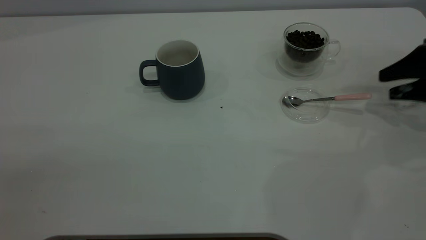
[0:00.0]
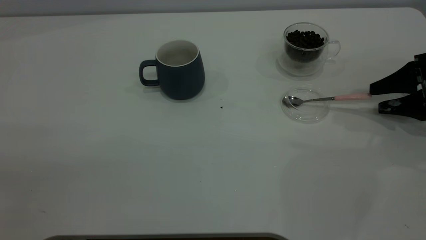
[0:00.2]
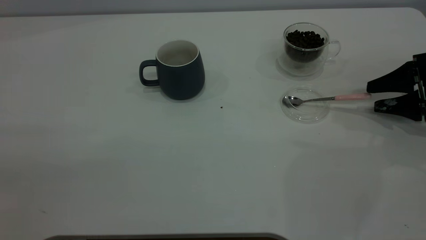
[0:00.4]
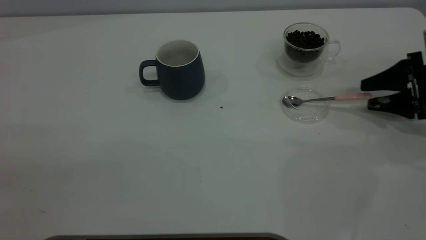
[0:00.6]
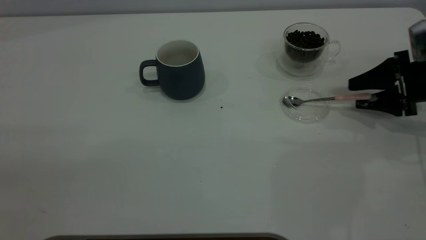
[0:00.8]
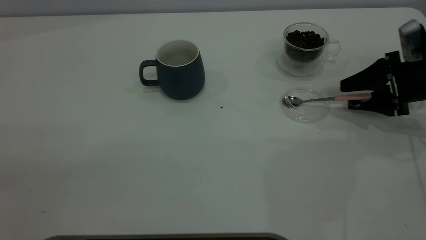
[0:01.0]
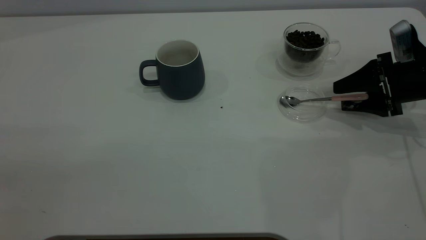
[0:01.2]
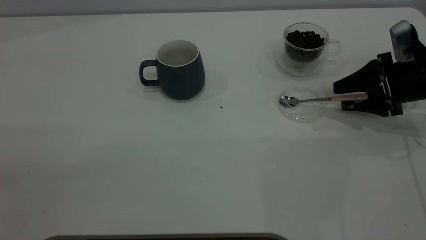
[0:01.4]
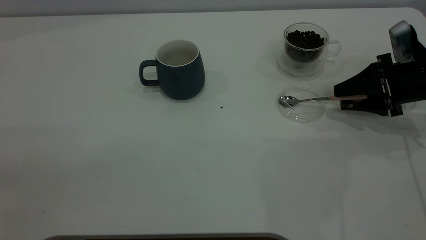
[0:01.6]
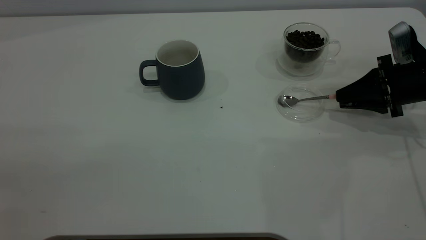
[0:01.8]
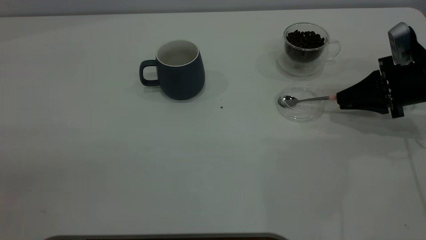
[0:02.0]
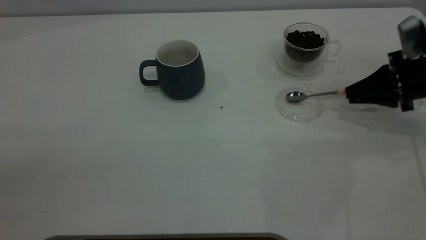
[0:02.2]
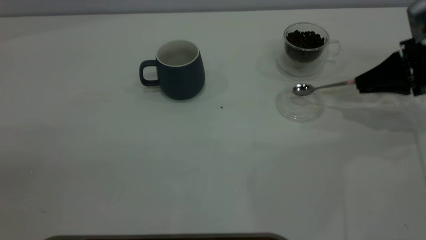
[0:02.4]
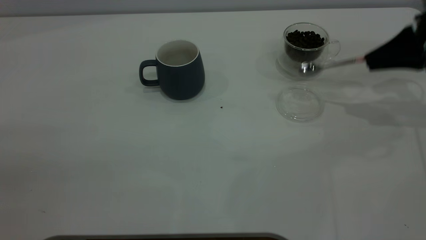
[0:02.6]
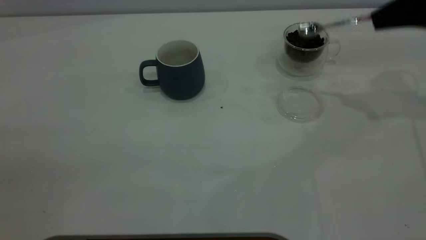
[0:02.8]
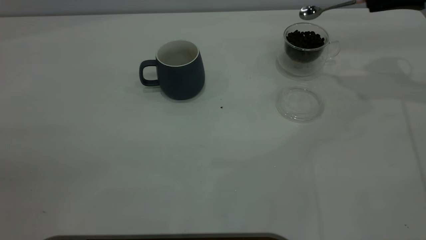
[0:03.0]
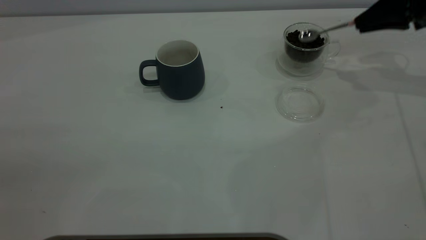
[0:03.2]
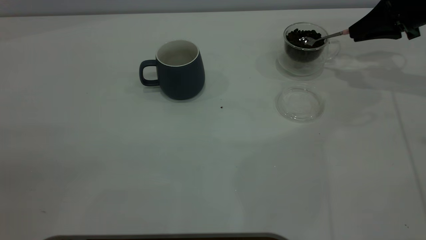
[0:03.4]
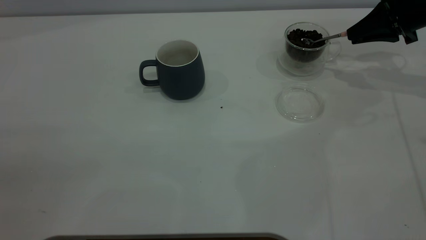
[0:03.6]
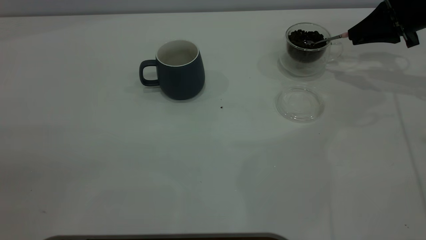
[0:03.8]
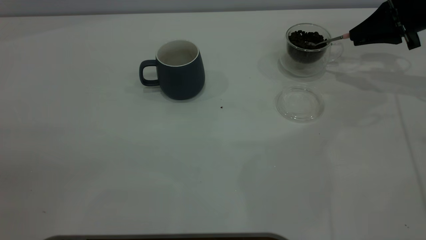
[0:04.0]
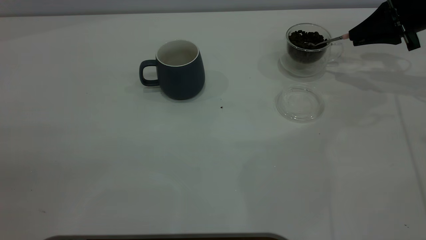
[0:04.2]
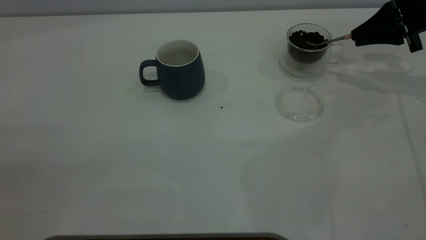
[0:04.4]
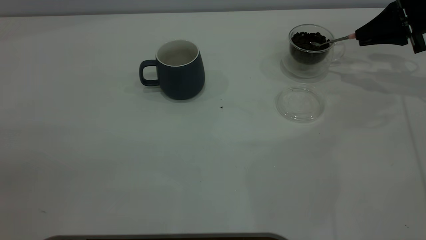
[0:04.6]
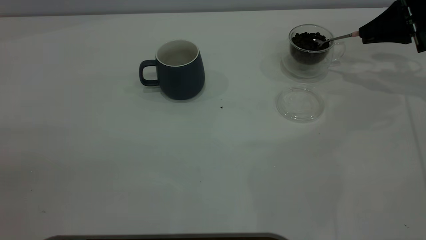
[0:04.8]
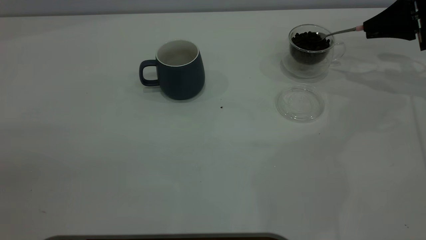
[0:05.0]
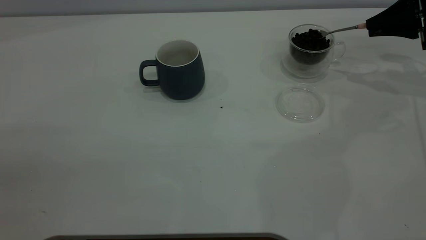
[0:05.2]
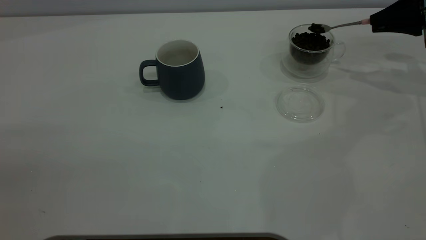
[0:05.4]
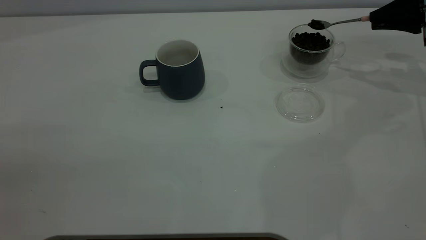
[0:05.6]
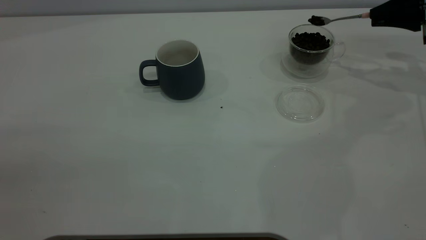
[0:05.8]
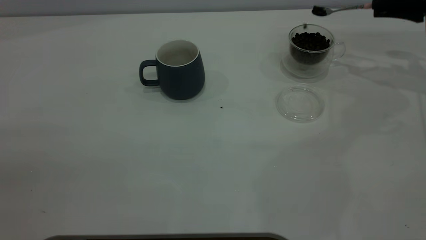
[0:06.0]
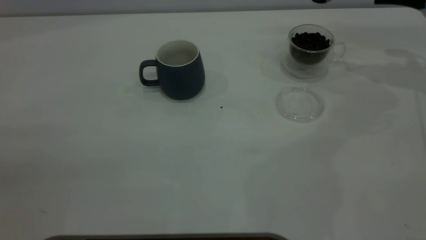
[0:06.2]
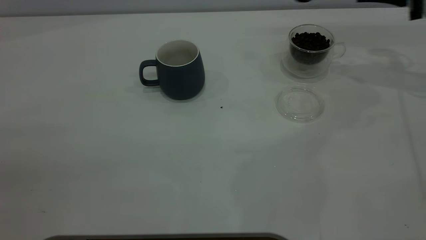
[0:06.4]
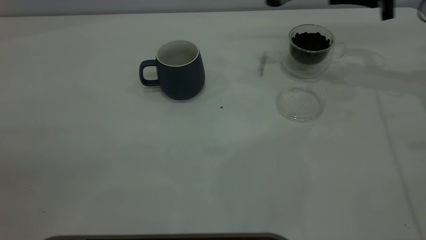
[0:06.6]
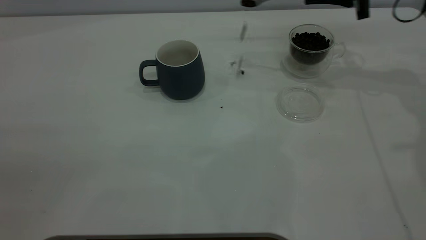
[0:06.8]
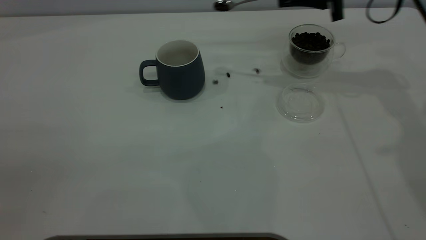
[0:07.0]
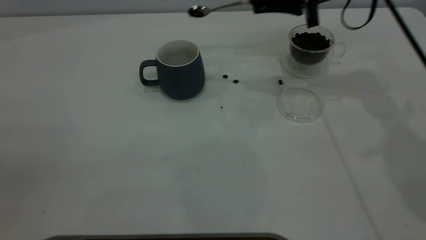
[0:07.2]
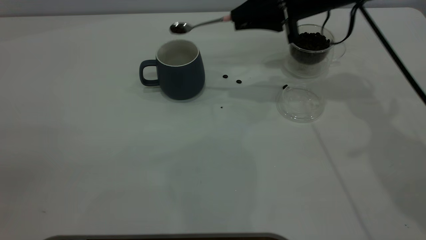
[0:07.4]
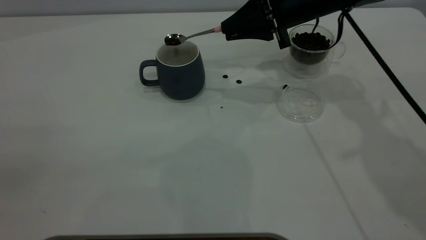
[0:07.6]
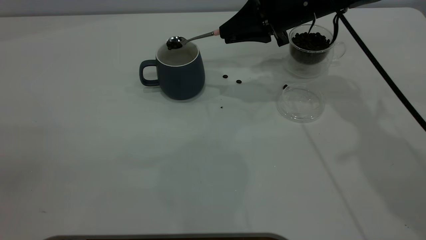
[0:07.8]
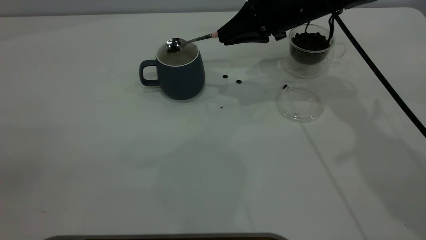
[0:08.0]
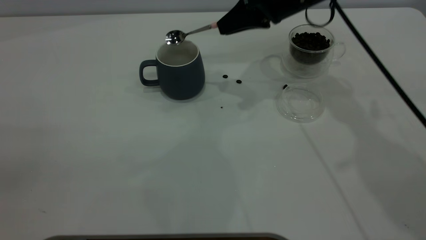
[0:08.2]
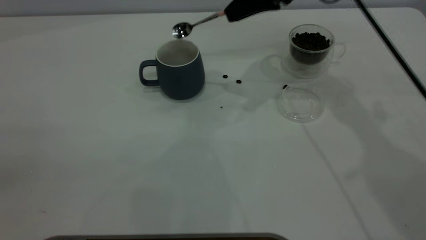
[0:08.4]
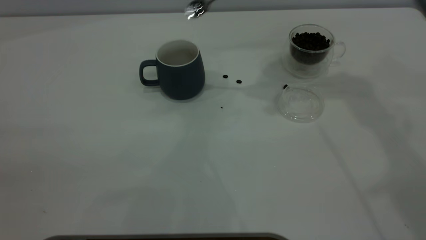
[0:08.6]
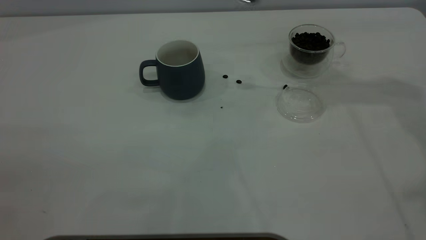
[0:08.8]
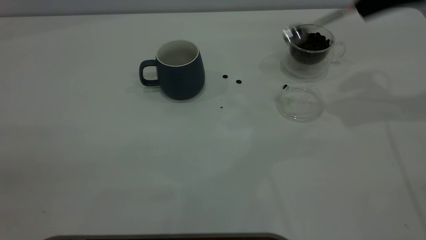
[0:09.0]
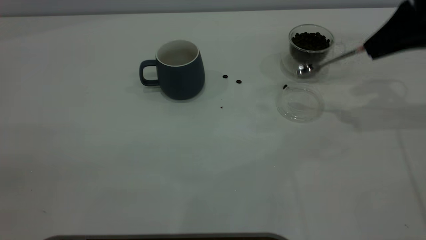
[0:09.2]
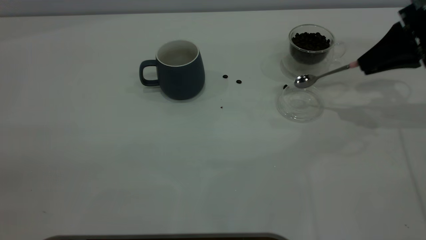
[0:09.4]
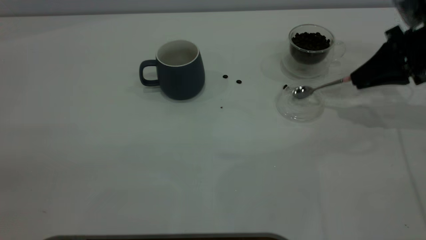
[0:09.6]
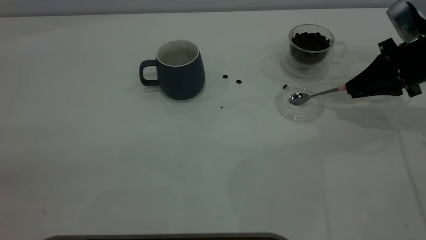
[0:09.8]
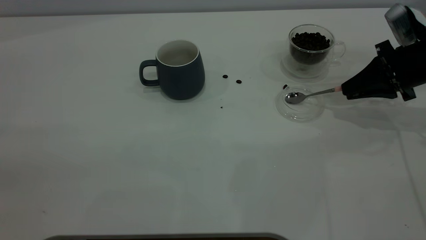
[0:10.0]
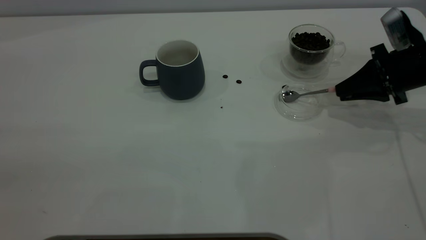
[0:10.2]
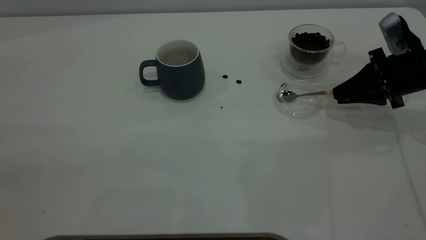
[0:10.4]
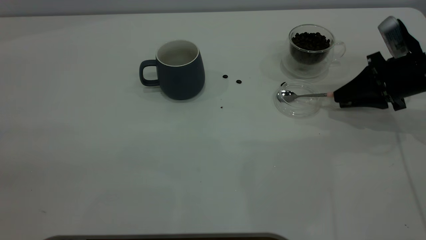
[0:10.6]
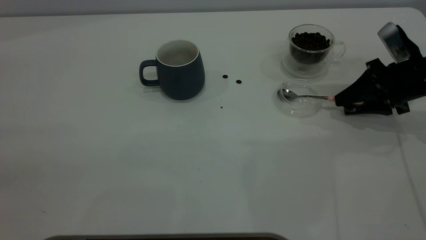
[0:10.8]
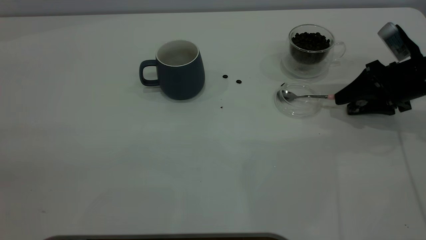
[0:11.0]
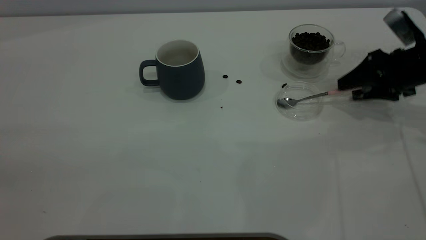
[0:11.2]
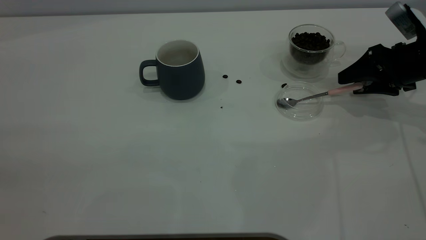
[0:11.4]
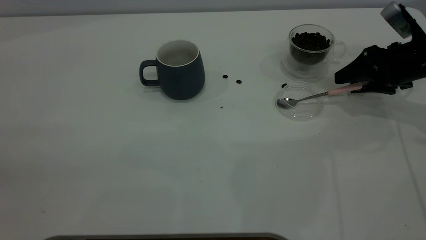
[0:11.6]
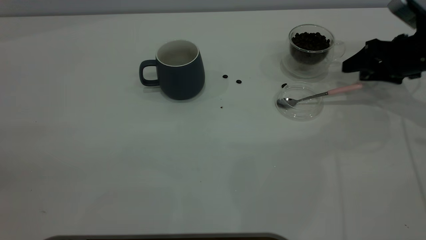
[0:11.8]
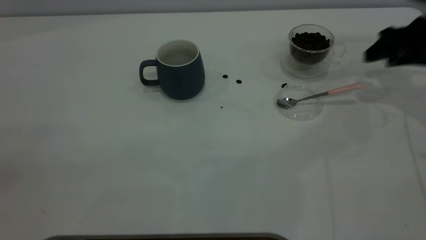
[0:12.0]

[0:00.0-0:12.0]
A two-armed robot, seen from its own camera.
Task of the whole recording: the left gripper place the grey cup in the center of the table, the right gripper take the pink spoon from the cup lid and scoop out the coffee beans from the coffee cup and put them into the grey cup, the right gripper put the spoon back into the cup lid.
Step, 0:00.0 to 0:02.4: Pick up the spoon.
Step, 0:02.6 to 0:08.2: Scoop a spoonful of beans into the cup.
Step, 0:08.4 to 0:11.8: Place the spoon back in its original place.
0:00.0 to 0:01.6: The right gripper travels to the left by roughly 5 cm, and closes its fingers.
0:01.6 to 0:03.0: The right gripper travels upward and forward by about 15 cm, and closes up.
0:03.0 to 0:04.4: The right gripper heads downward, covering about 5 cm.
0:04.4 to 0:06.0: The grippers stay close to where they were, moving slightly.
0:06.0 to 0:07.6: The right gripper travels to the left by about 25 cm.
0:07.6 to 0:09.0: The right gripper is displaced to the right and upward by some 20 cm.
0:09.0 to 0:10.4: The right gripper moves downward, approximately 15 cm.
0:10.4 to 0:12.0: The right gripper shifts approximately 5 cm upward, and opens its fingers.

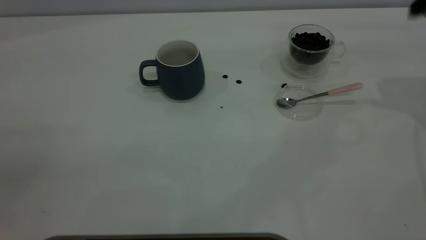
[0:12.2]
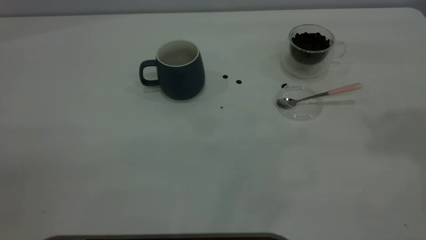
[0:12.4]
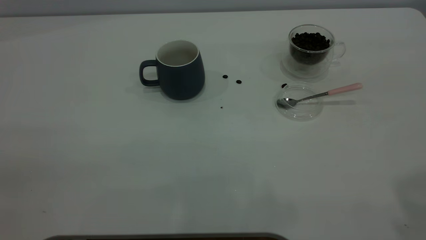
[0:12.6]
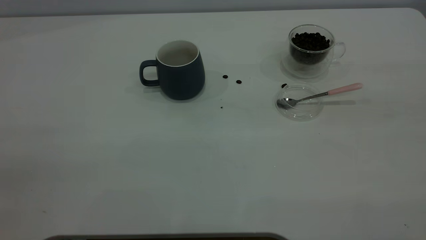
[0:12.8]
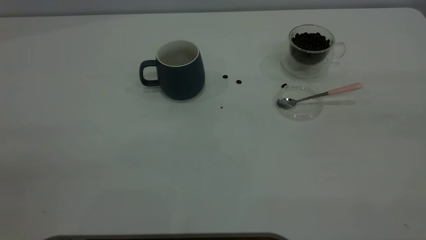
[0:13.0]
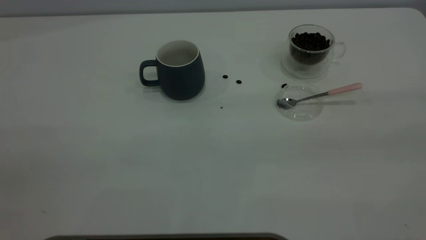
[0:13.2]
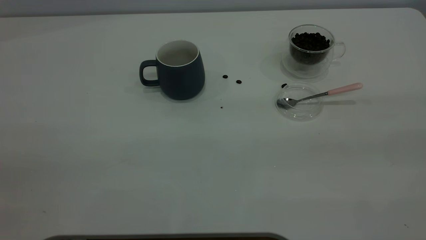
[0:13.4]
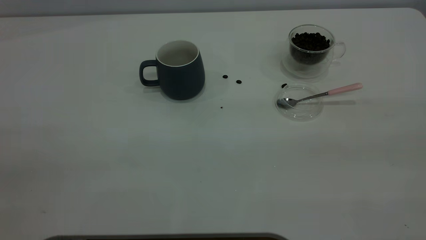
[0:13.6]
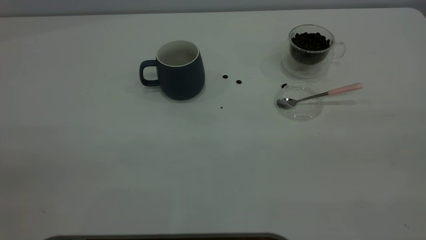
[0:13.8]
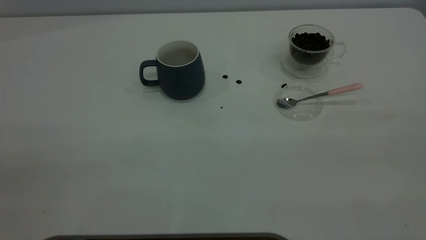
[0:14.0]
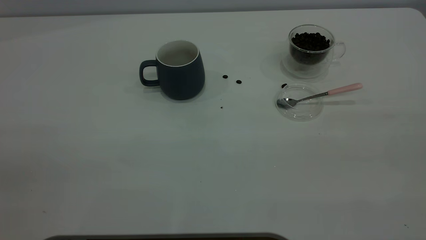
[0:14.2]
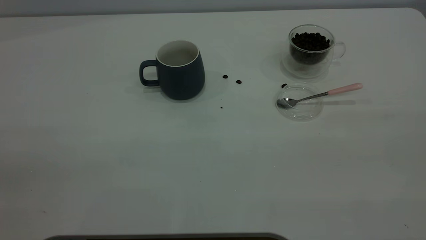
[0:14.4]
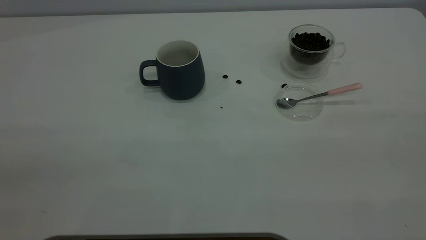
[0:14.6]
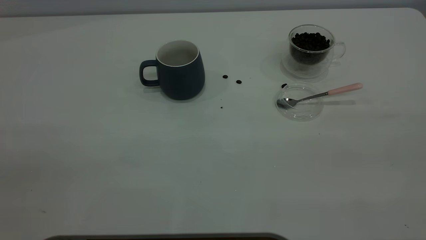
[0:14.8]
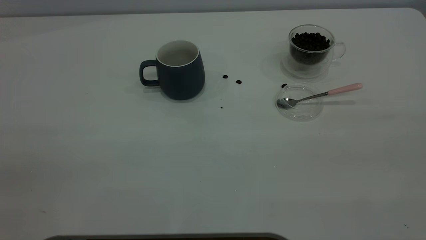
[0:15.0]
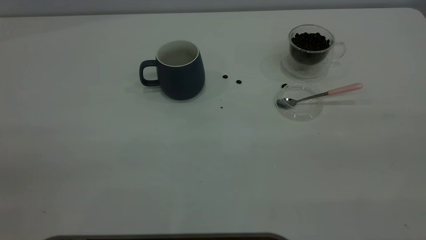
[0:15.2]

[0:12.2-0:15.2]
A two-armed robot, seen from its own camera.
Task of the whole recording: the left gripper place the grey cup in the center of the table, the right gripper take the pink spoon from the cup lid and scoop out the coffee beans from the coffee cup and put them into the grey cup, the right gripper put the spoon back into the cup lid.
0:13.8 to 0:15.2: Both grippers stay put.
